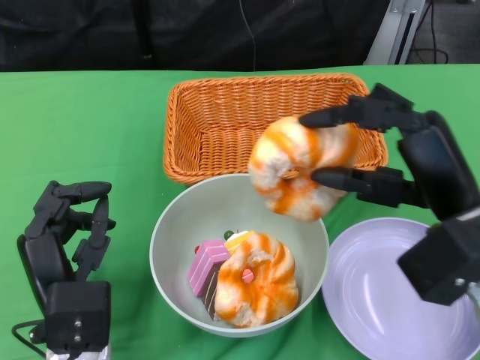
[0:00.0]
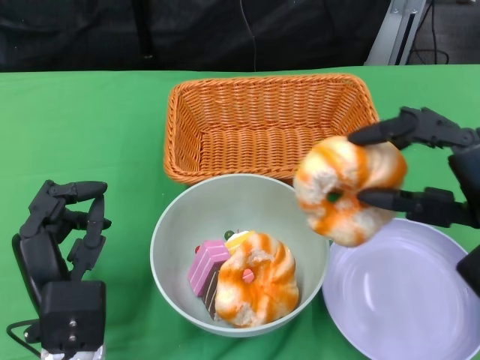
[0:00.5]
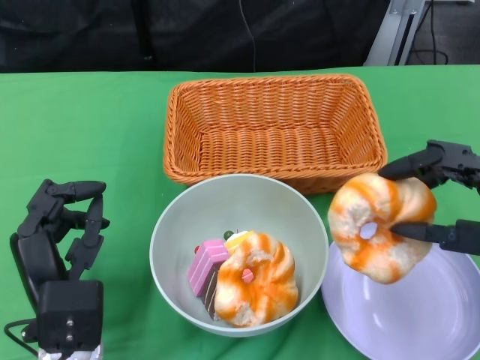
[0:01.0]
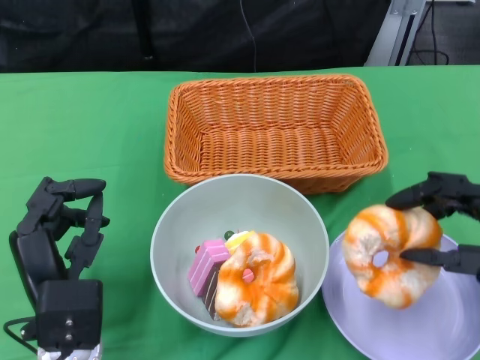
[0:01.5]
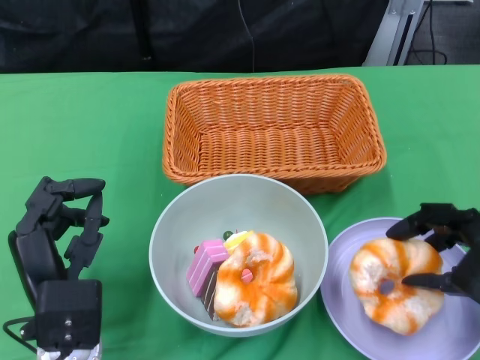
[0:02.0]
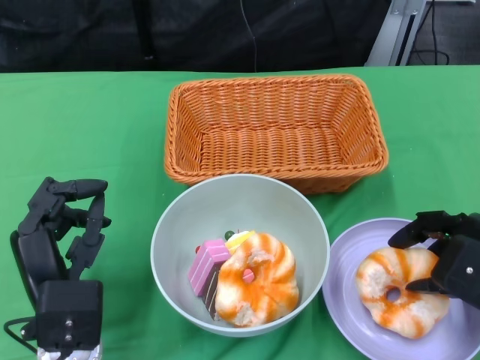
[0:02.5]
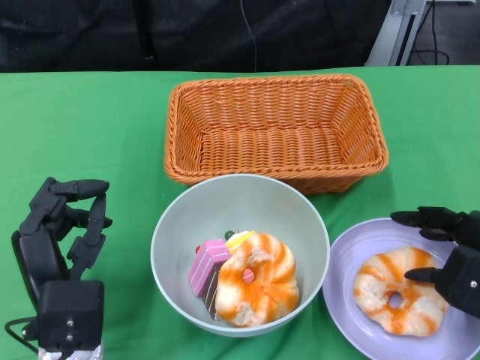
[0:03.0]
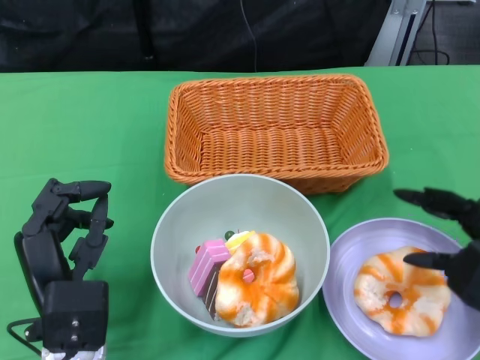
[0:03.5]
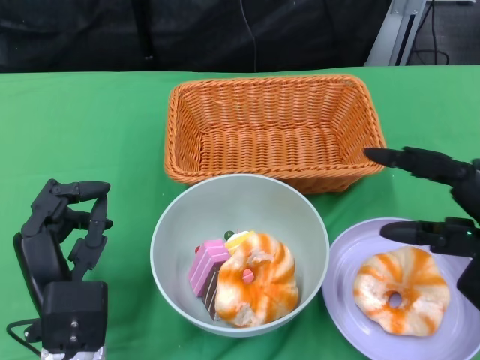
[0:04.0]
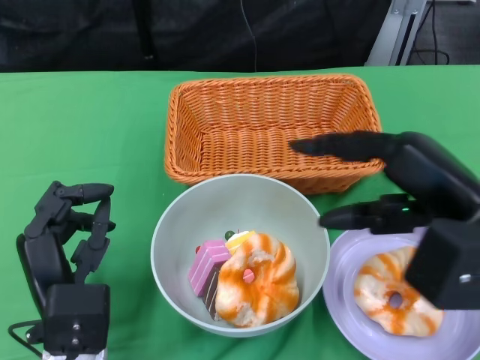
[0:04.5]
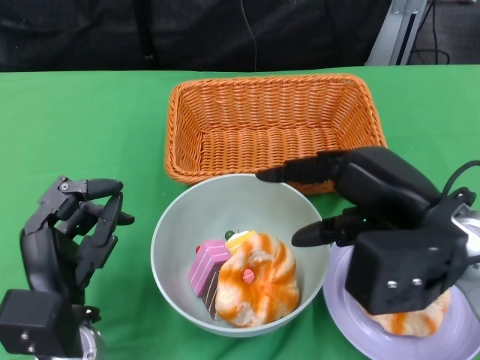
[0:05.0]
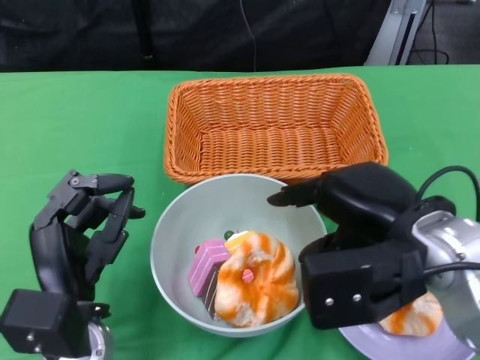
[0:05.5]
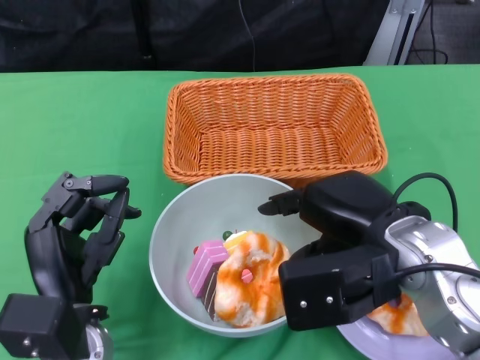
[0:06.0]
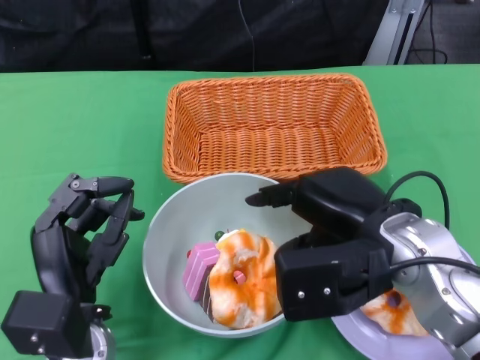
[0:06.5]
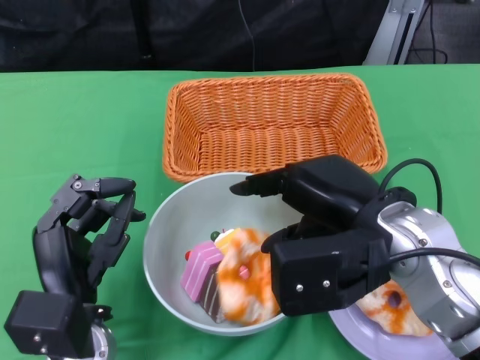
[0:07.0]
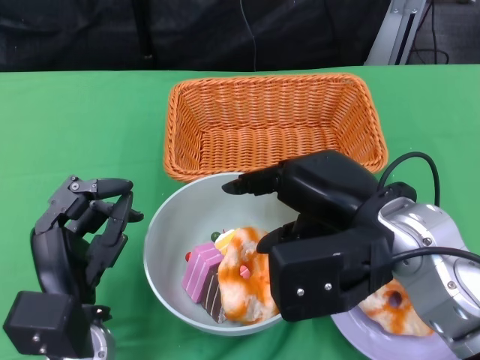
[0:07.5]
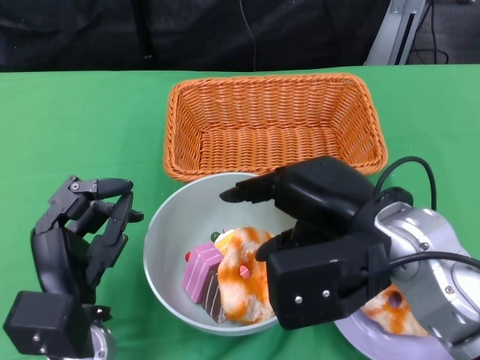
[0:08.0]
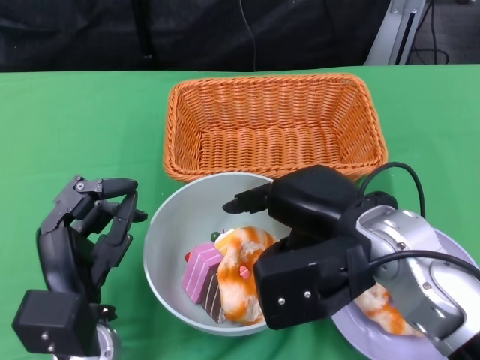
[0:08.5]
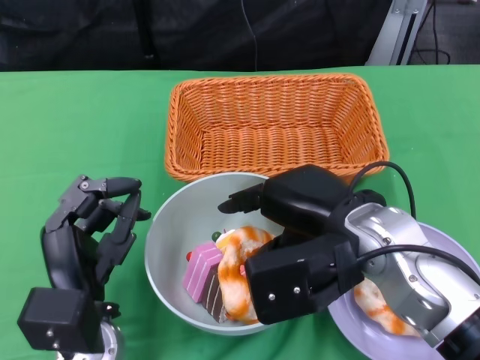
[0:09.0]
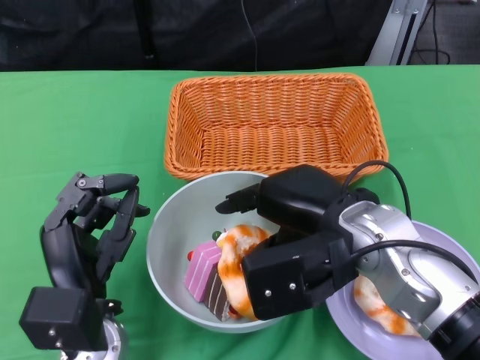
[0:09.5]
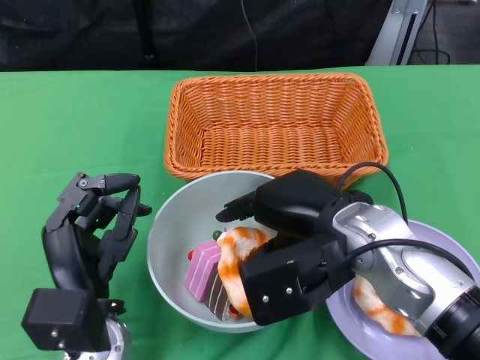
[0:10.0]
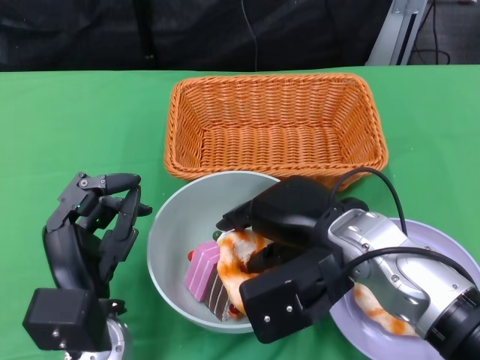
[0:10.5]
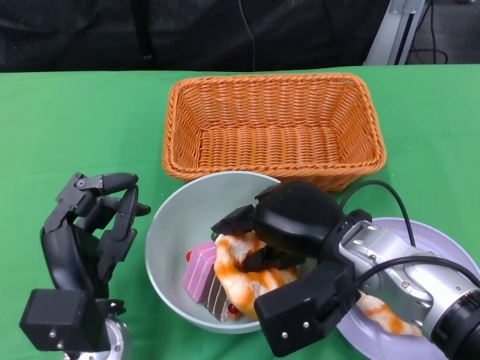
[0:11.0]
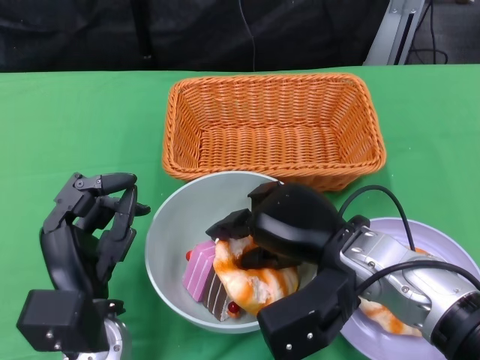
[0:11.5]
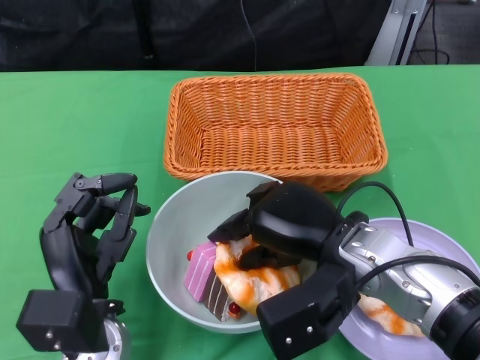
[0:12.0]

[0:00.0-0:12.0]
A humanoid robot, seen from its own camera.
Step, 0:00.0 to 0:03.5: Pick up the bread with the right gripper and place it on the plate.
0:00.0 to 0:02.0: The right hand heads to the right and downward, covering some 10 cm.
0:02.0 to 0:04.0: The right hand shifts some 5 cm upward.
0:04.0 to 0:06.0: The right hand goes some 10 cm to the left.
0:06.0 to 0:08.0: There are only small adjustments of the hands.
0:08.0 to 0:10.0: The right hand shifts by some 5 cm.
0:10.0 to 0:12.0: The hands stay close to where they were, moving slightly.

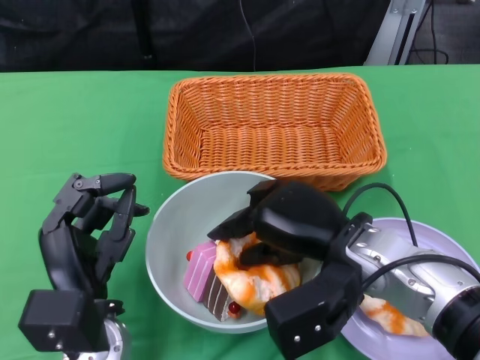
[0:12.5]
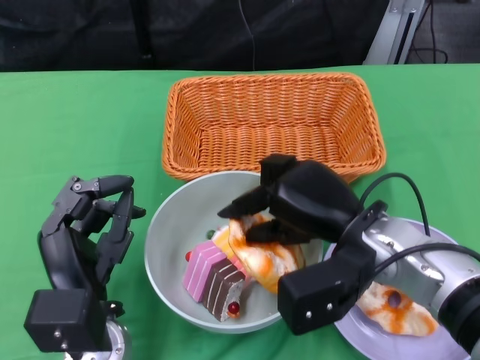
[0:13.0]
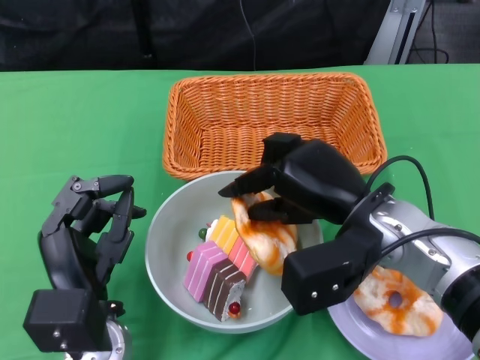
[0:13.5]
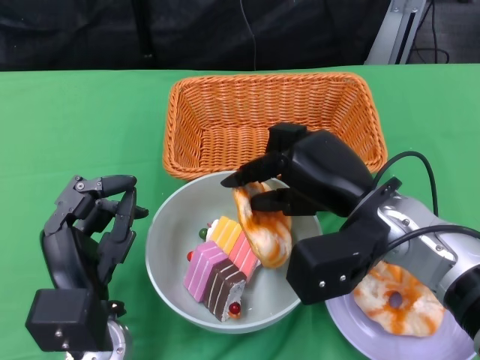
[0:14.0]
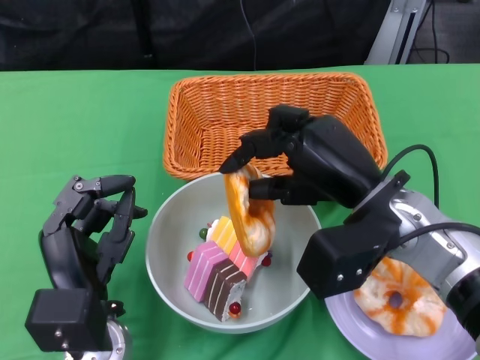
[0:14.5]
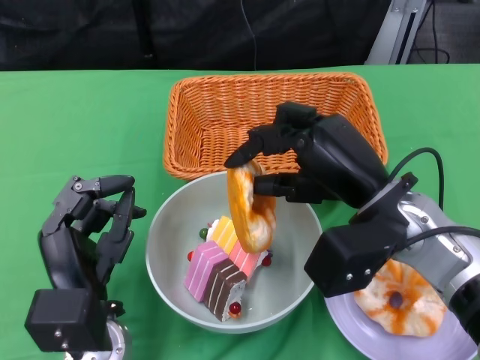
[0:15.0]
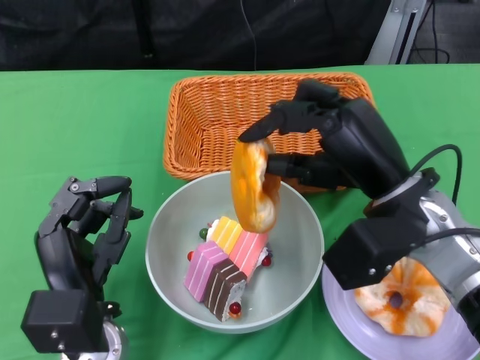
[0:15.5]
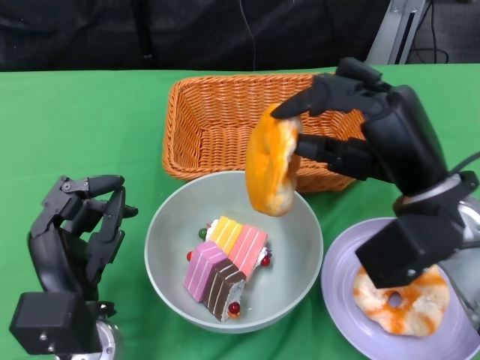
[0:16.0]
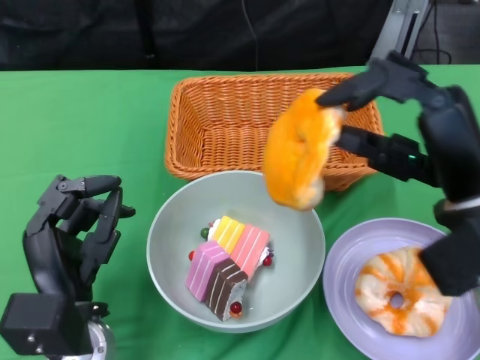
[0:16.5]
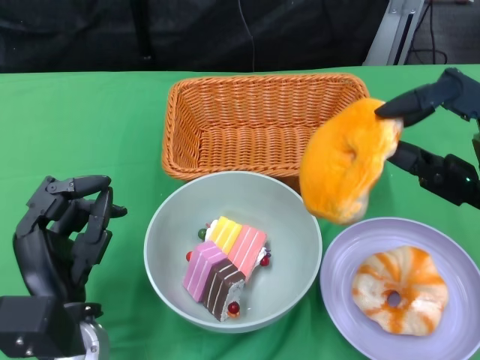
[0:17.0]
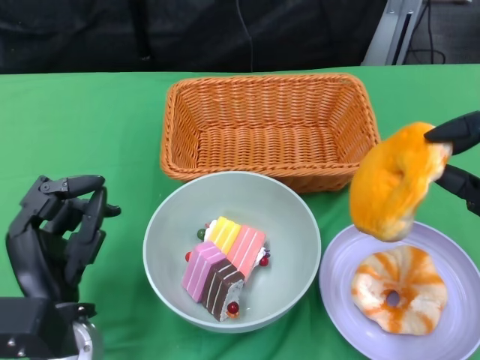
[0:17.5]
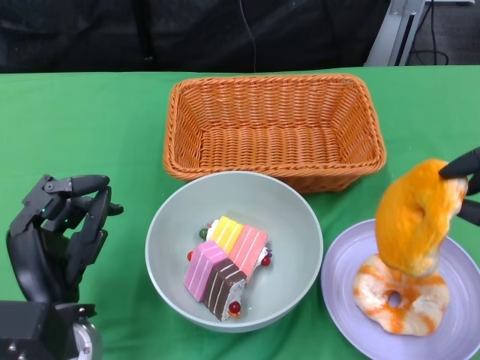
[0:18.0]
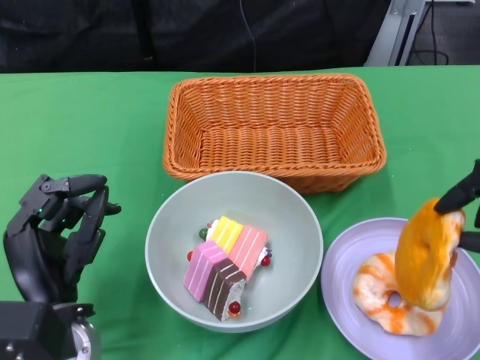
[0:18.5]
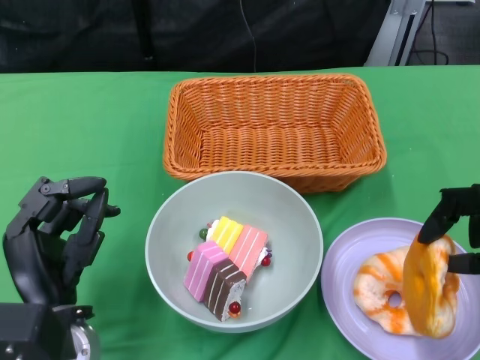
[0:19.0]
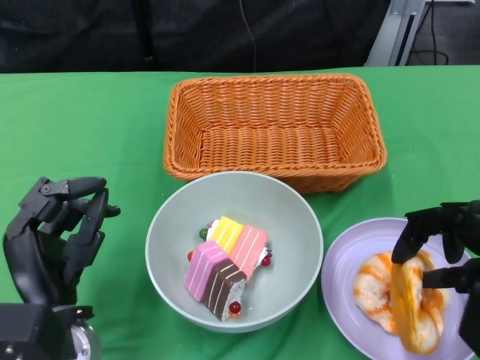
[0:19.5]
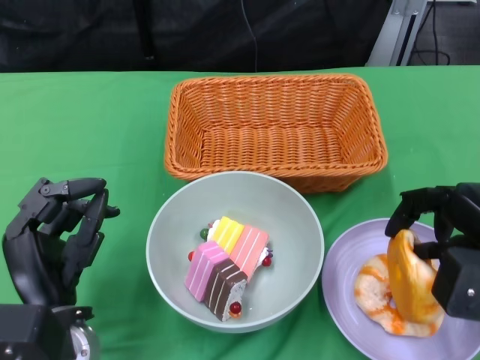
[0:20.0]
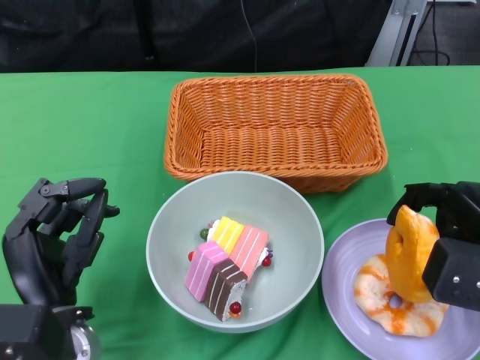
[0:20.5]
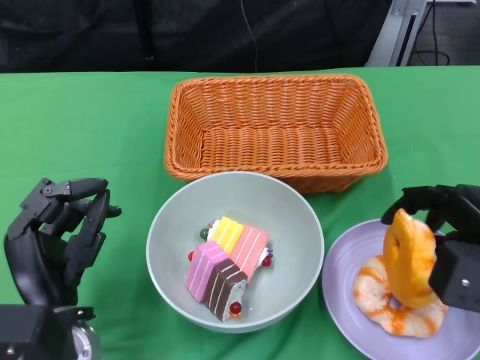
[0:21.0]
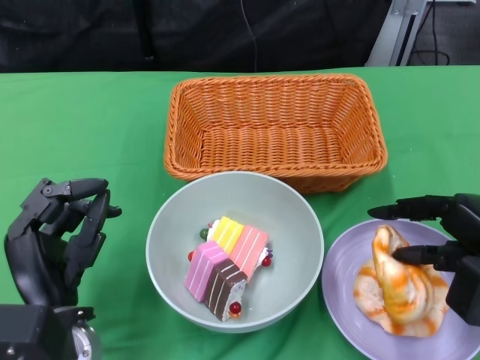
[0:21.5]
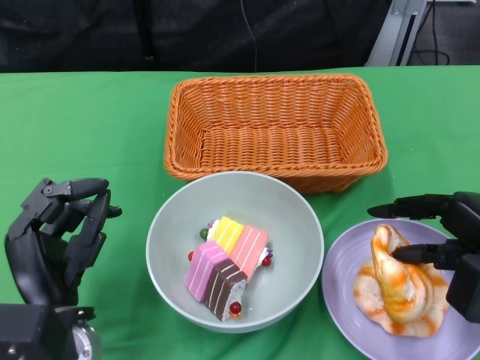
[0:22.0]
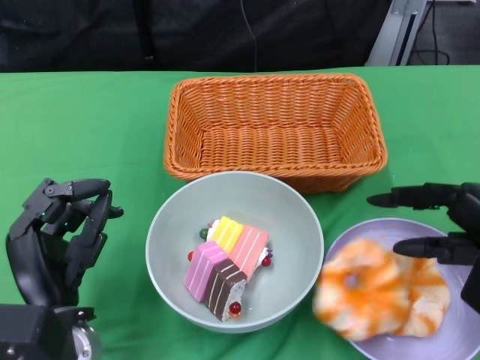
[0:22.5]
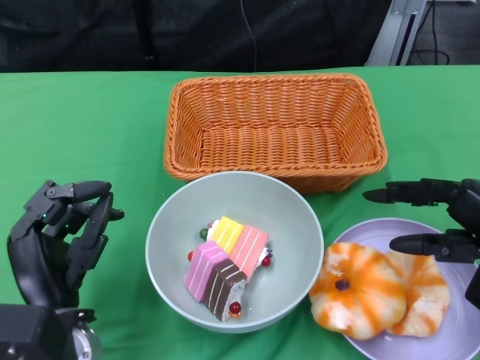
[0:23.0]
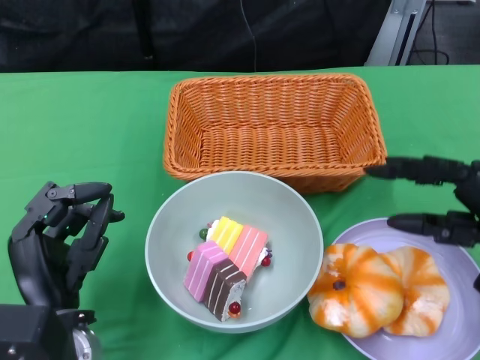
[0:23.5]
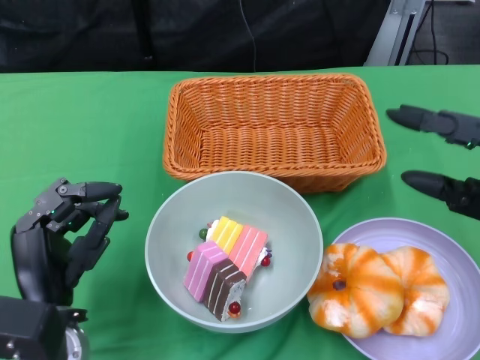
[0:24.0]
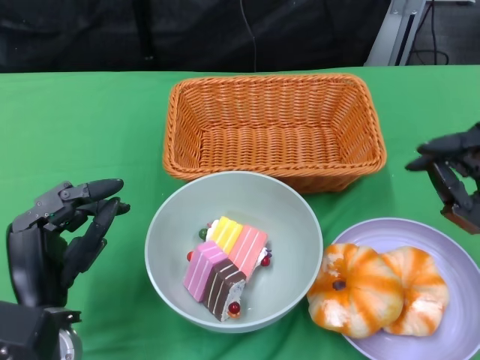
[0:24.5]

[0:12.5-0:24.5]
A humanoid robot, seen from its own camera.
Step, 0:12.5 to 0:23.0: Pick up the bread with the right gripper and place it on the plate.
0:14.5 to 0:16.5: The right hand moves to the right, approximately 5 cm.
0:16.5 to 0:18.5: The right hand moves to the right and backward, about 15 cm.
0:18.5 to 0:20.5: The right hand heads forward and downward, covering some 10 cm.
0:20.5 to 0:22.5: The hands stay close to where they were, moving slightly.

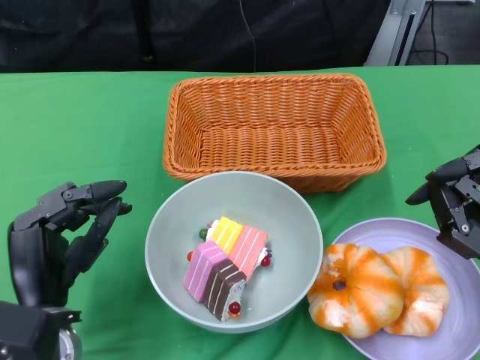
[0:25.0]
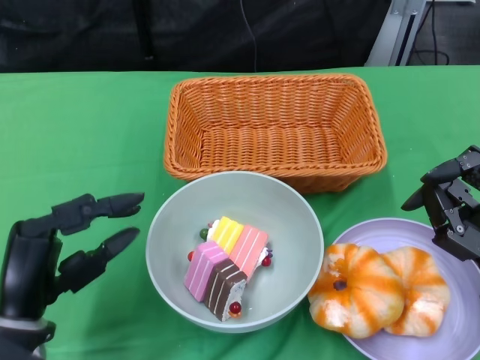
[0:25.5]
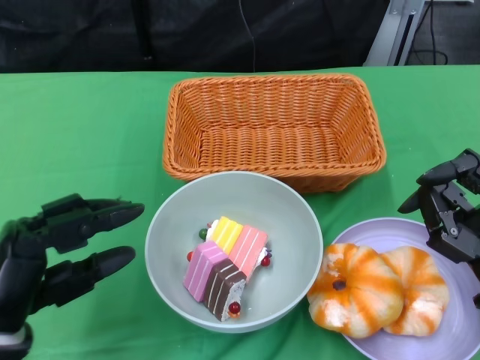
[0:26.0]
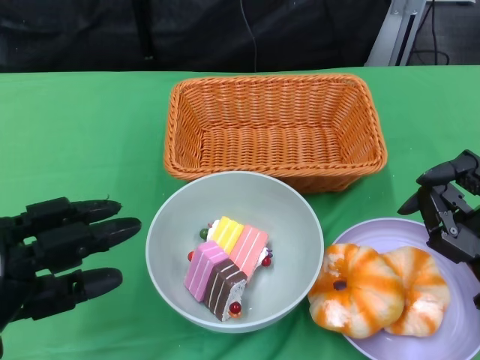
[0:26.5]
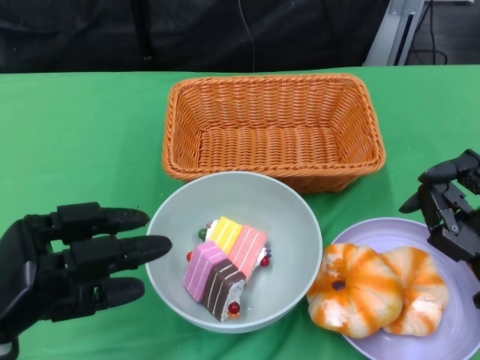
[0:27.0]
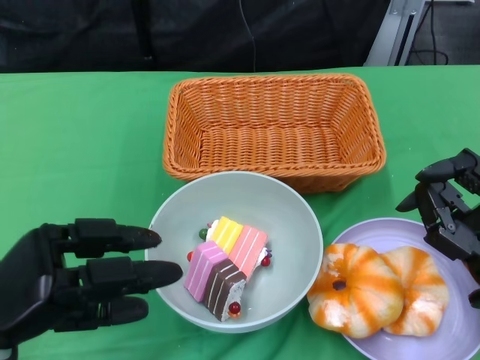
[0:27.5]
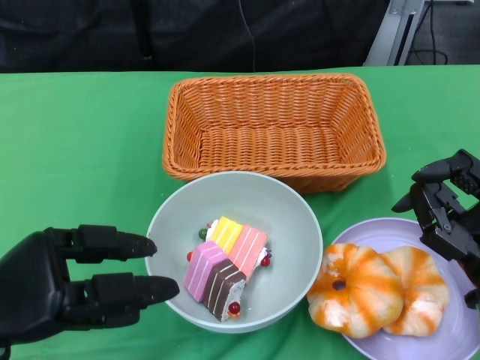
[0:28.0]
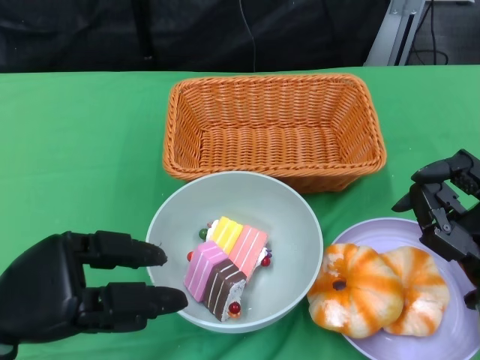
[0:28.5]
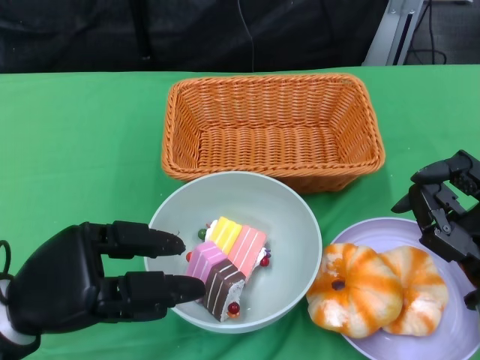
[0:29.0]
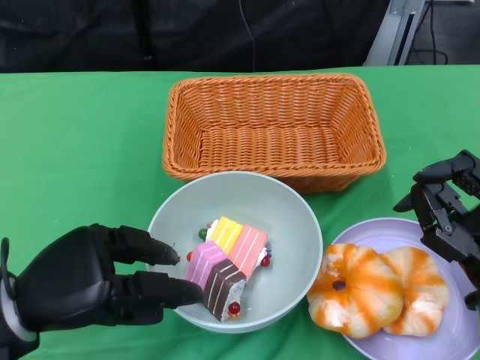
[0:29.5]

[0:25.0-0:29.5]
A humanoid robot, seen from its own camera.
0:25.0 to 0:27.0: The left hand moves to the left, some 5 cm.
